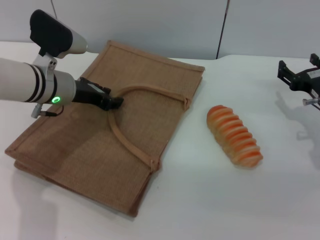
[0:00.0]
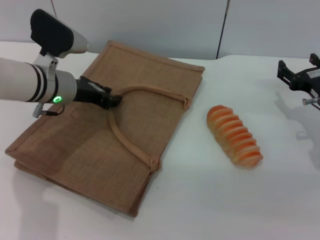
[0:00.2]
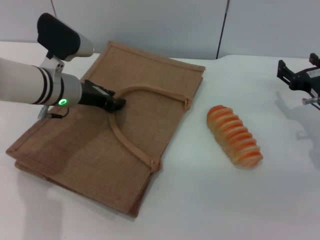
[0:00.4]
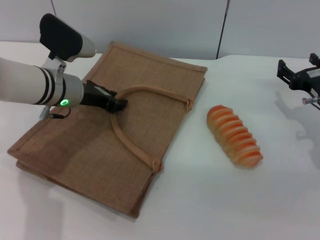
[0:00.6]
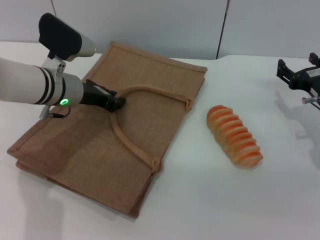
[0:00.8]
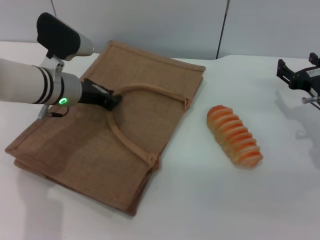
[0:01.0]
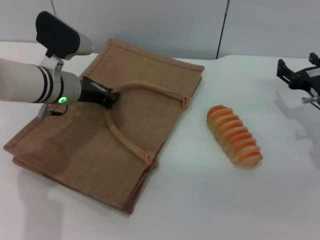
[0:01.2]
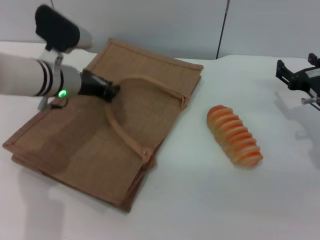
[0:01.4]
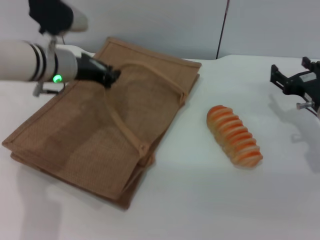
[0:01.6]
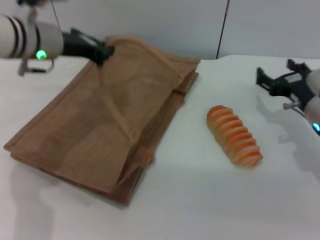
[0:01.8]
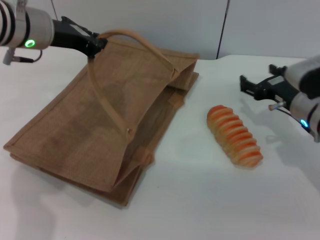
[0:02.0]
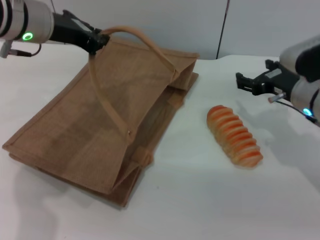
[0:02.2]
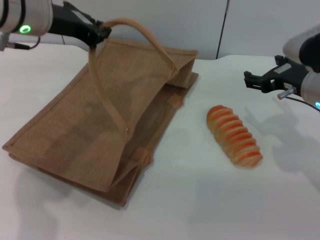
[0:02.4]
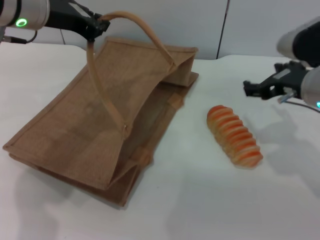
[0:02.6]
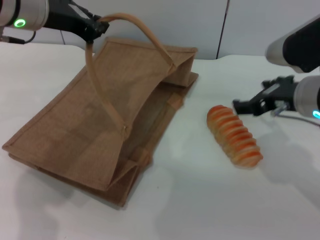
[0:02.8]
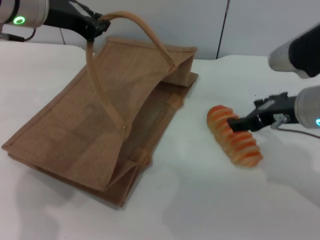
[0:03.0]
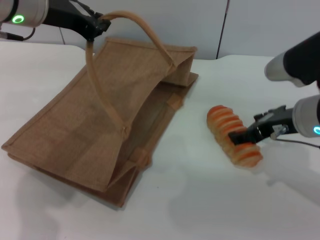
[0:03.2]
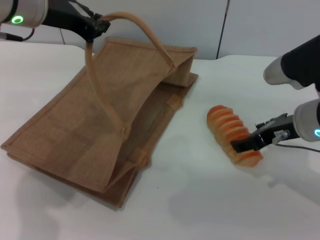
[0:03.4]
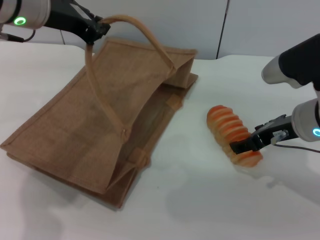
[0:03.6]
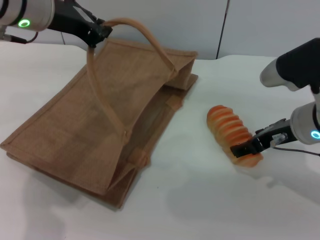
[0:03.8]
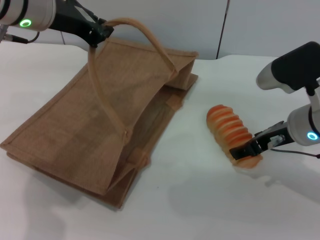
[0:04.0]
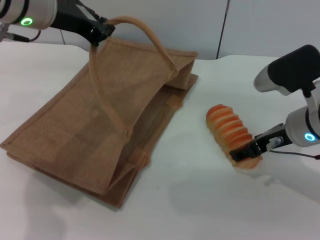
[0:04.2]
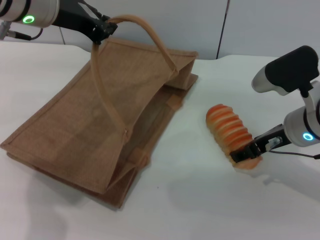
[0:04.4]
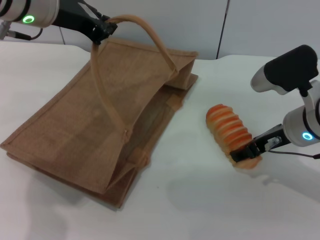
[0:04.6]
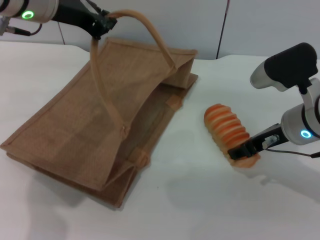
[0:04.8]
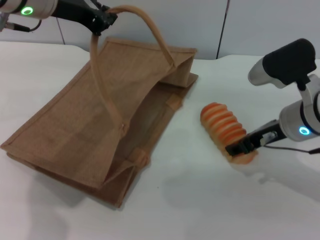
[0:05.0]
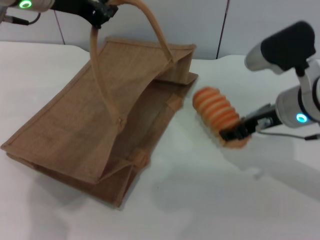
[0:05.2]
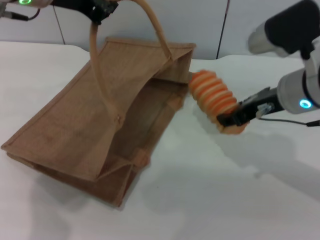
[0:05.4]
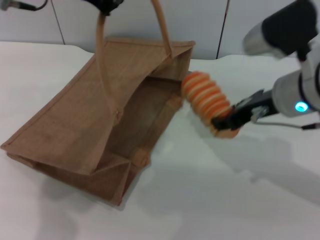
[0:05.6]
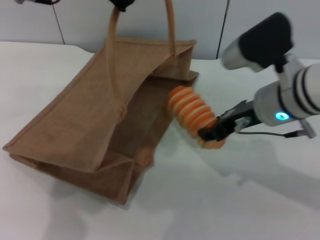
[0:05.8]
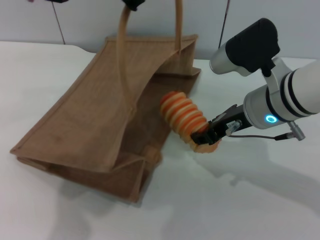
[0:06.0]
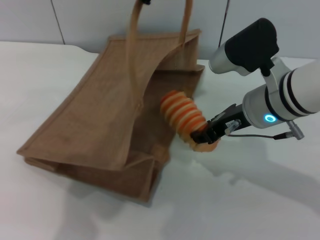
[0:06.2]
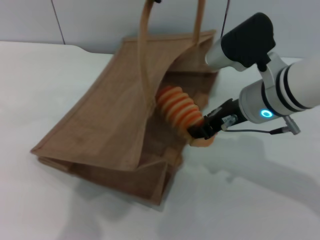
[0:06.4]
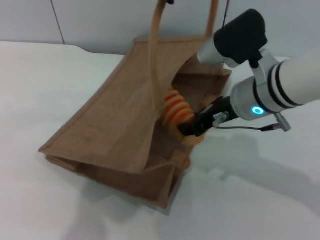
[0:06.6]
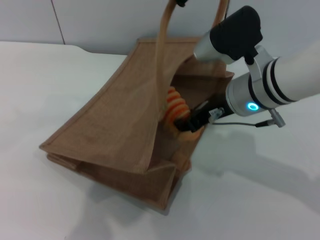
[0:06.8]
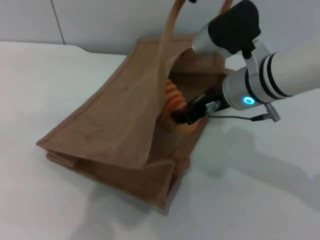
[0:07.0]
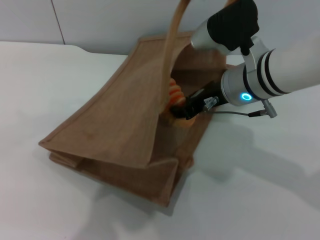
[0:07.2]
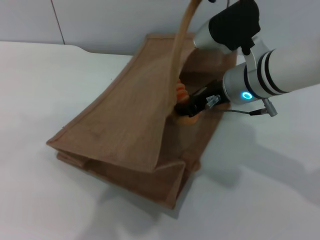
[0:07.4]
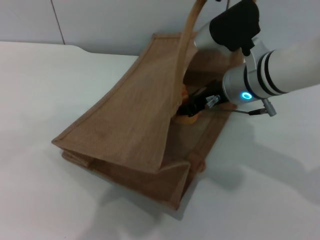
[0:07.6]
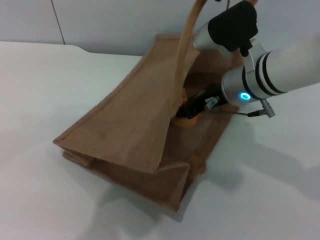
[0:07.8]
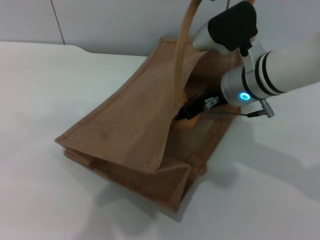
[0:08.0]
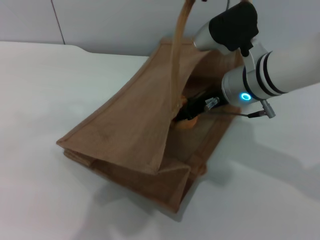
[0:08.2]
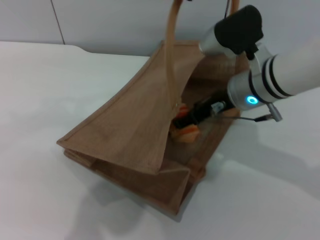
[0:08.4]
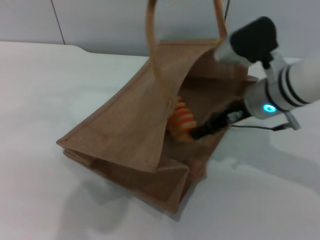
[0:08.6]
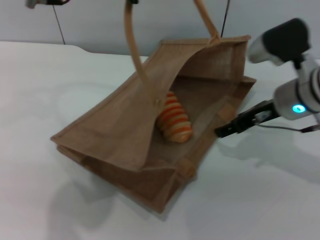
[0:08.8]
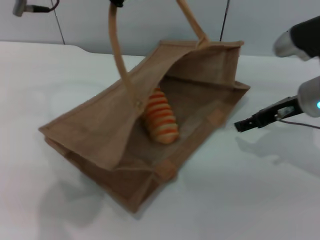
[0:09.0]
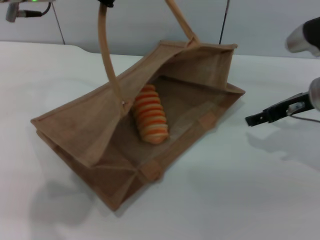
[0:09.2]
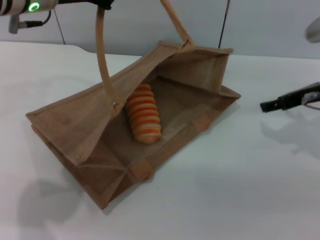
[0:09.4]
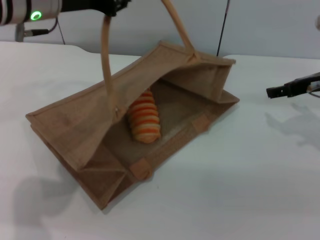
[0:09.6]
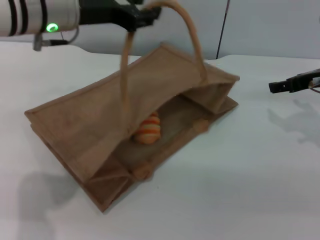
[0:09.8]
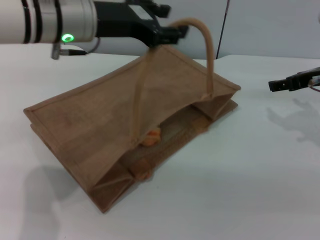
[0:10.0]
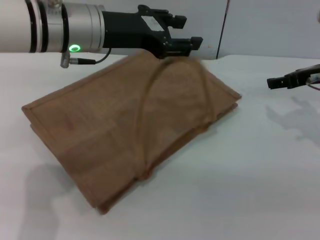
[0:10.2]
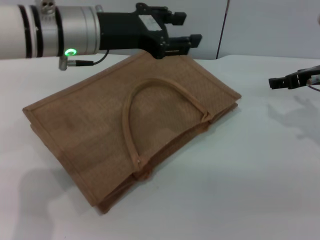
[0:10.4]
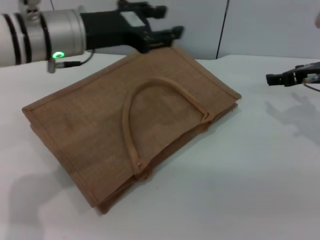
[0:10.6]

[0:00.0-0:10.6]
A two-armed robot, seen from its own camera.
Task of the whole recording: pick up the bread from the table and place it in the brown handbag.
Step, 0:00.0 to 0:02.0: Lift the woven bag with the left gripper to open it.
Step, 0:02.2 to 0:05.2: Pick up the bread with the right gripper.
Step, 0:05.4 to 0:08.6: Place the bread into the woven bag with the right gripper.
Step, 0:09.0 to 0:10.4: Lower the woven bag with the left gripper to close it.
0:00.0 to 0:01.6: The left gripper closes its fingers.
0:01.6 to 0:03.0: The left gripper is displaced upward by about 15 cm, while the right gripper heads upward and to the left, covering about 15 cm.
0:03.0 to 0:04.6: The grippers move only a little.
0:04.6 to 0:06.0: The right gripper goes about 5 cm to the left, and closes up. Meanwhile the left gripper moves to the right, some 5 cm.
0:06.0 to 0:07.6: The left gripper heads to the right, covering some 10 cm.
0:07.6 to 0:09.0: The right gripper moves to the right, about 10 cm, and opens up, while the left gripper goes about 10 cm to the left.
0:09.0 to 0:10.6: The left gripper shifts about 10 cm downward, and opens up, while the right gripper moves some 5 cm.

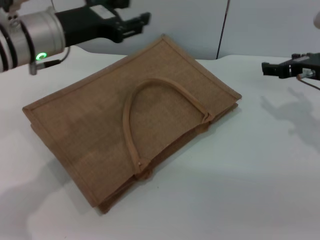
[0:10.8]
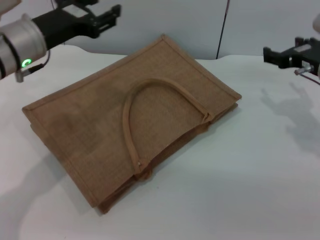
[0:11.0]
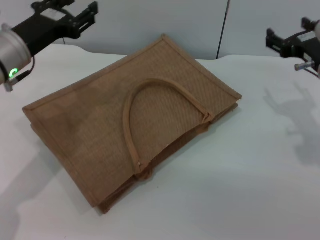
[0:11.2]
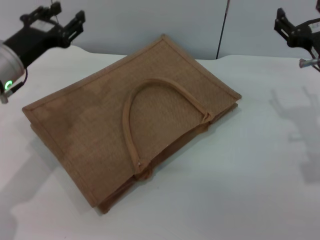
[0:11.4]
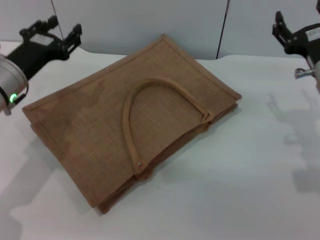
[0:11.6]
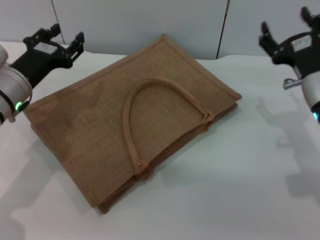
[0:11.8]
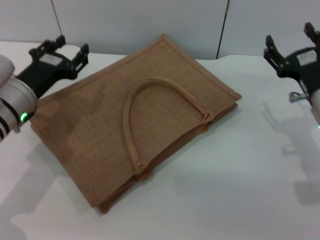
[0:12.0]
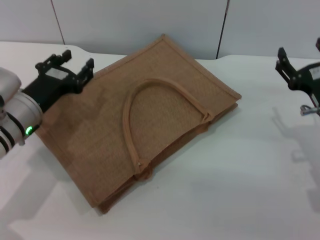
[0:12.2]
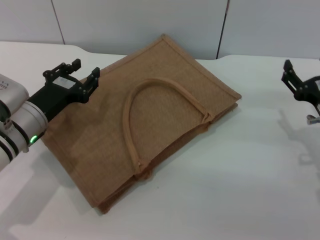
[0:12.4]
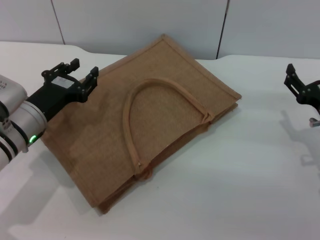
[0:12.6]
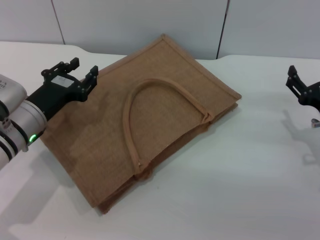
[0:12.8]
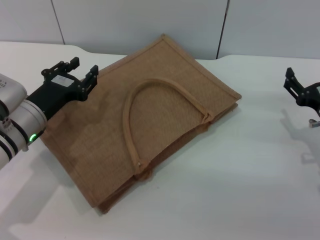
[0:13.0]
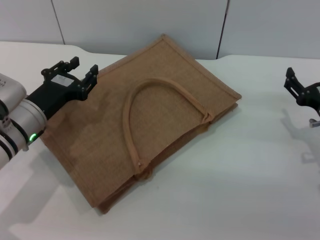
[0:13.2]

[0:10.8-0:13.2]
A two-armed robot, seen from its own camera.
Task of the whole recording: pick up the bread from the table and place it in the brown handbag.
0:10.8 to 0:12.0: The right gripper is displaced backward and downward by about 10 cm. Meanwhile the left gripper travels downward by roughly 10 cm.
0:12.0 to 0:13.2: The right gripper shifts by roughly 5 cm.
